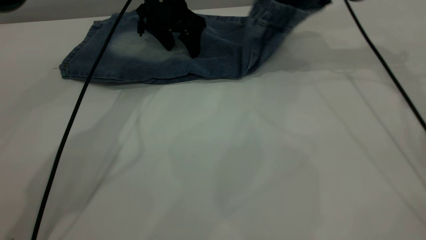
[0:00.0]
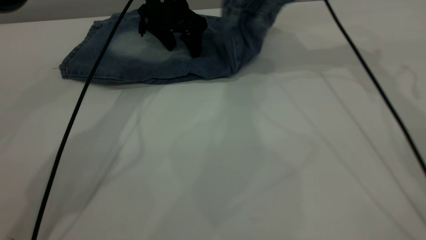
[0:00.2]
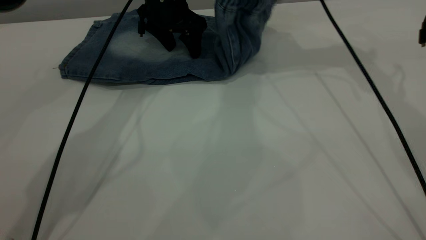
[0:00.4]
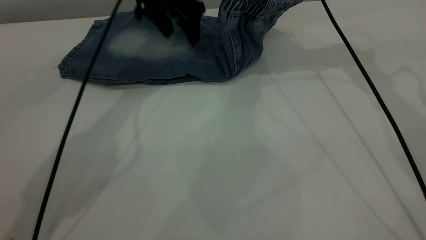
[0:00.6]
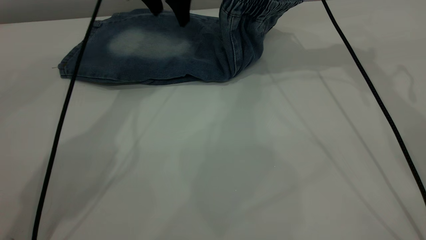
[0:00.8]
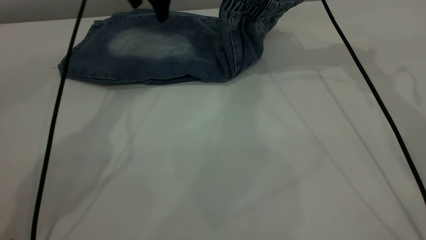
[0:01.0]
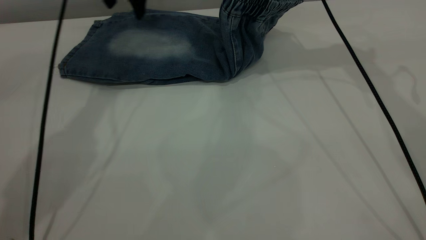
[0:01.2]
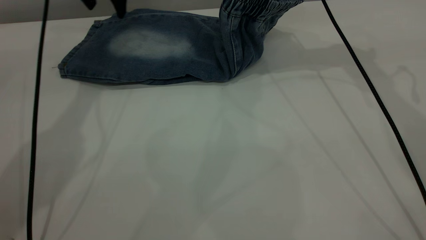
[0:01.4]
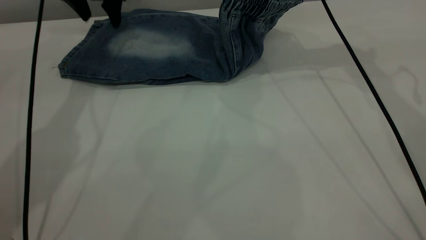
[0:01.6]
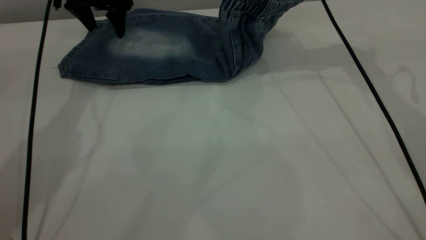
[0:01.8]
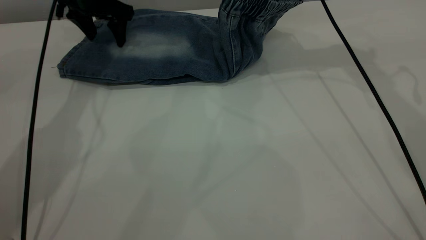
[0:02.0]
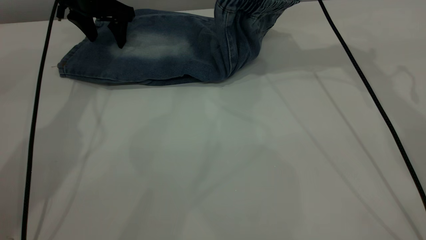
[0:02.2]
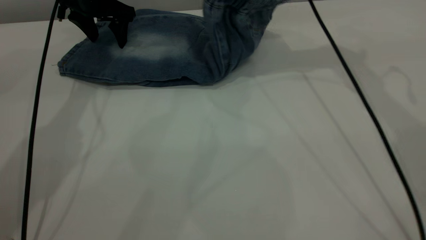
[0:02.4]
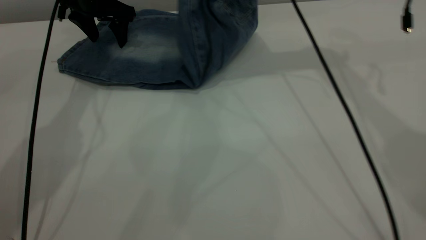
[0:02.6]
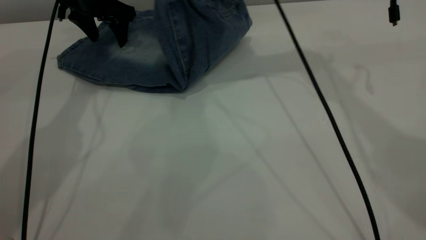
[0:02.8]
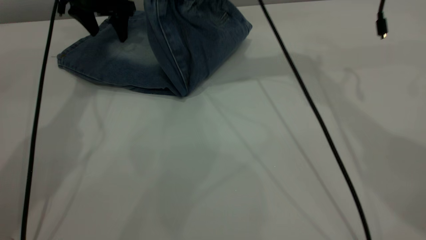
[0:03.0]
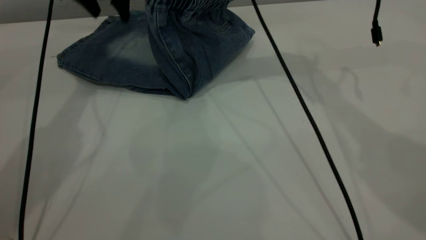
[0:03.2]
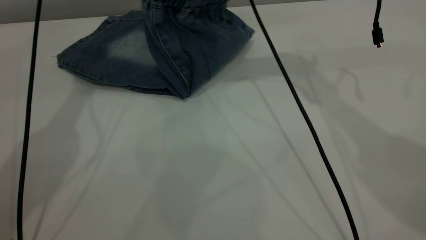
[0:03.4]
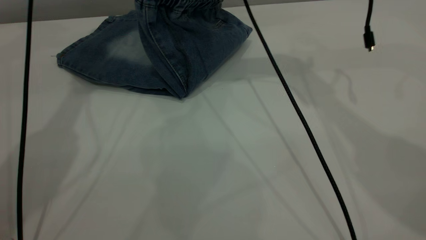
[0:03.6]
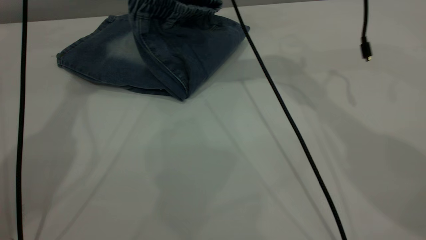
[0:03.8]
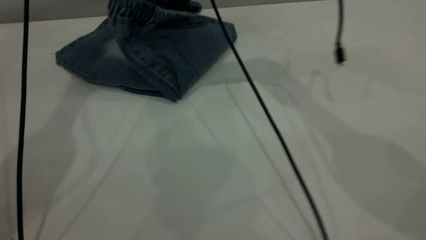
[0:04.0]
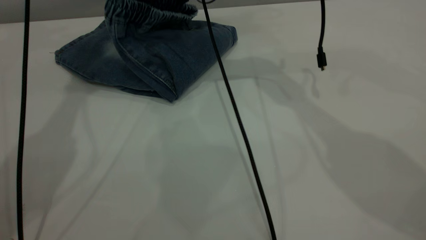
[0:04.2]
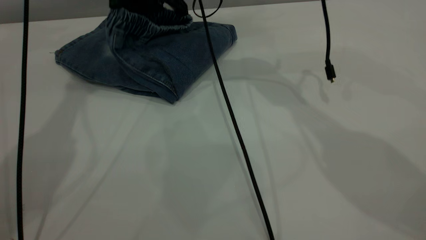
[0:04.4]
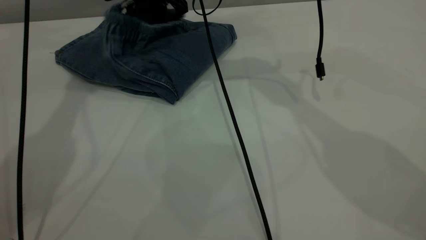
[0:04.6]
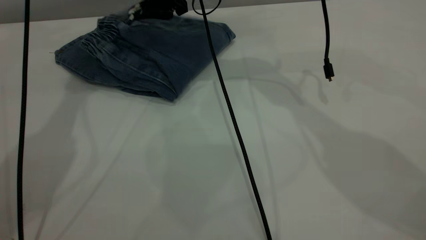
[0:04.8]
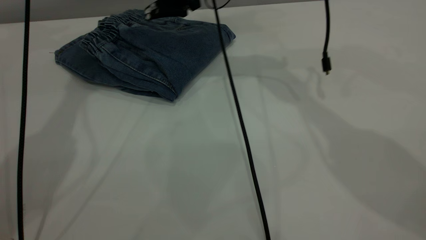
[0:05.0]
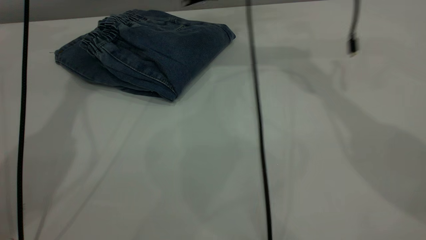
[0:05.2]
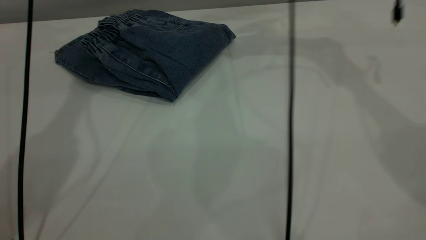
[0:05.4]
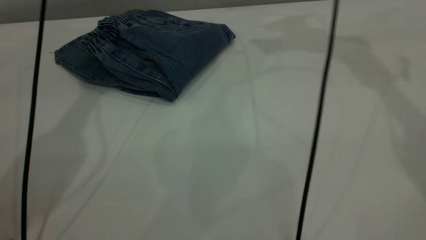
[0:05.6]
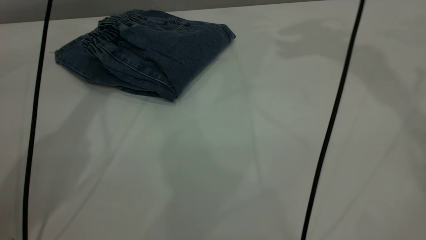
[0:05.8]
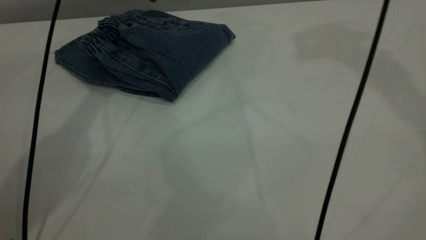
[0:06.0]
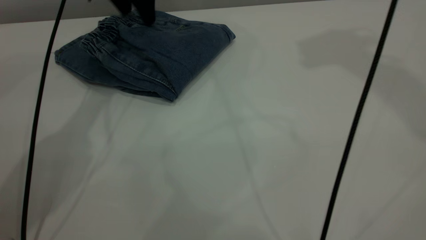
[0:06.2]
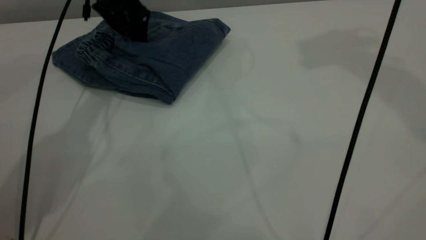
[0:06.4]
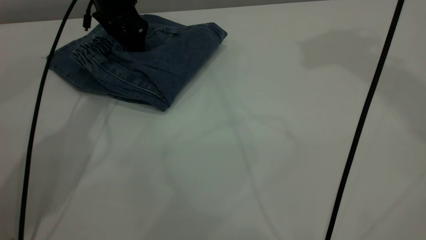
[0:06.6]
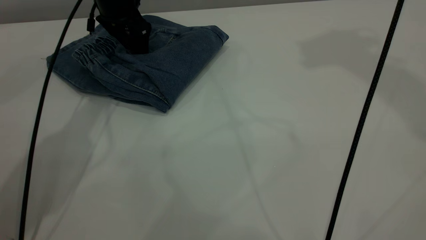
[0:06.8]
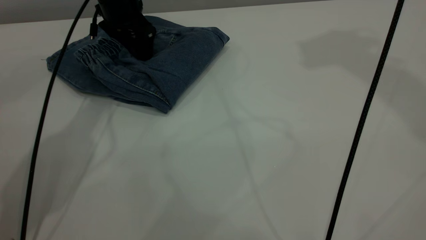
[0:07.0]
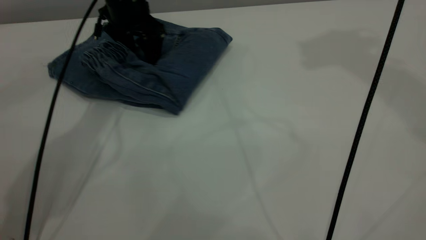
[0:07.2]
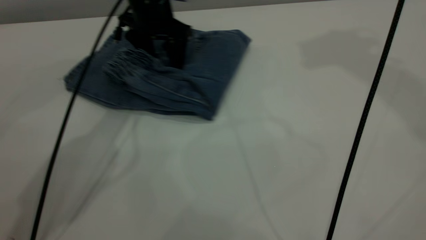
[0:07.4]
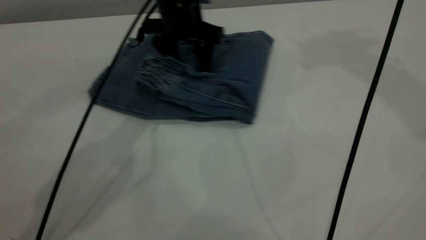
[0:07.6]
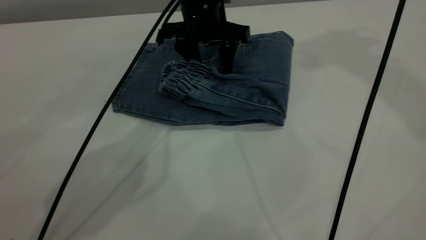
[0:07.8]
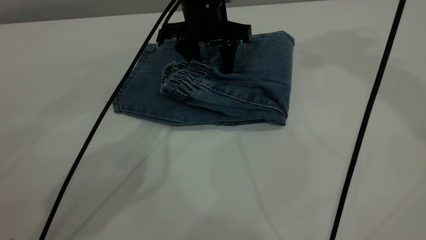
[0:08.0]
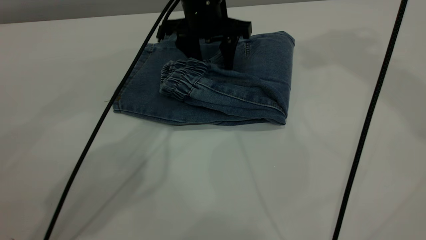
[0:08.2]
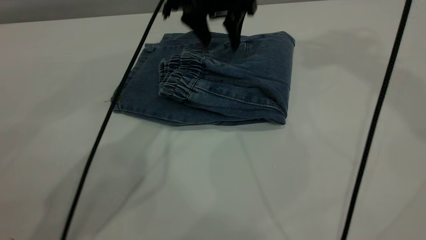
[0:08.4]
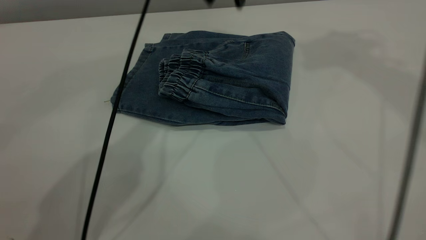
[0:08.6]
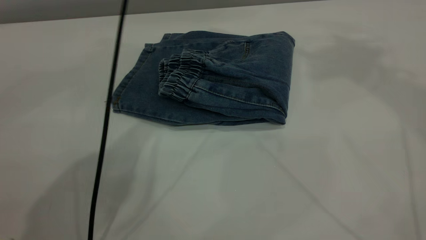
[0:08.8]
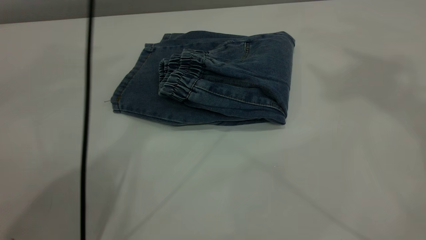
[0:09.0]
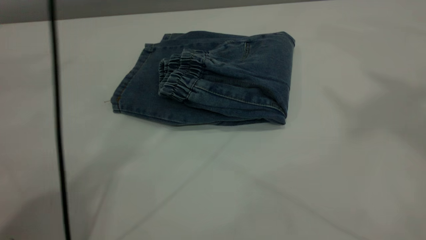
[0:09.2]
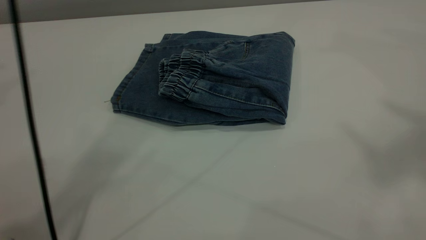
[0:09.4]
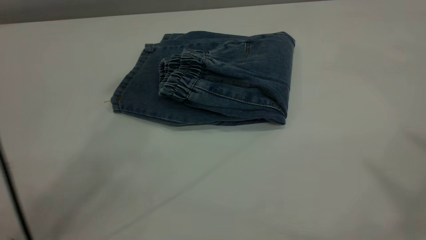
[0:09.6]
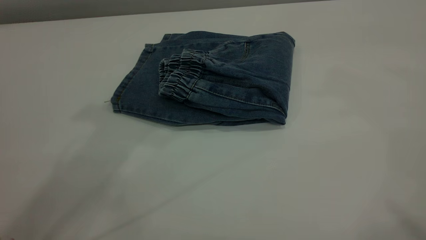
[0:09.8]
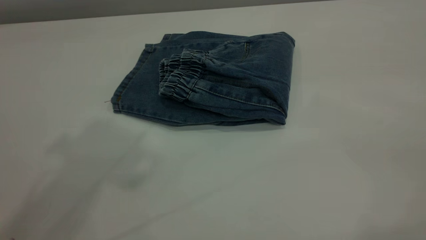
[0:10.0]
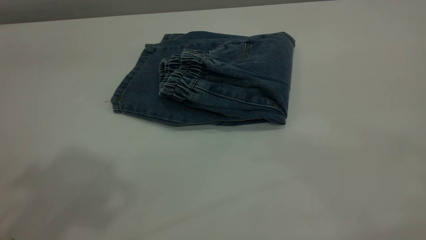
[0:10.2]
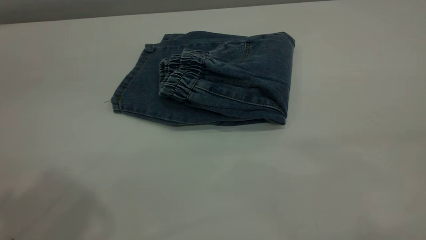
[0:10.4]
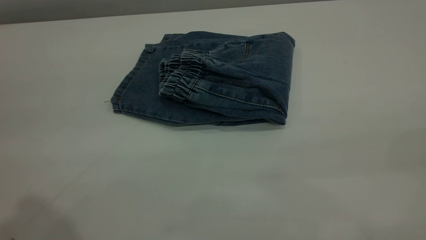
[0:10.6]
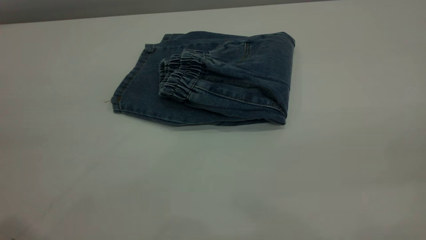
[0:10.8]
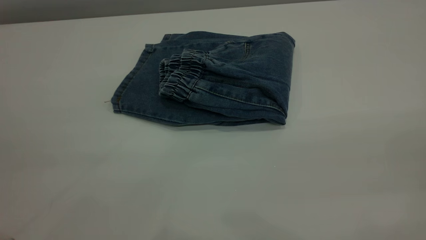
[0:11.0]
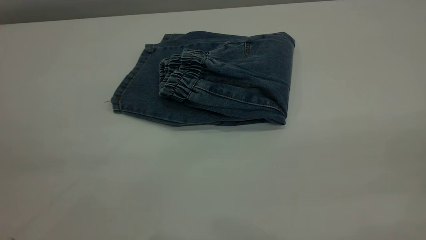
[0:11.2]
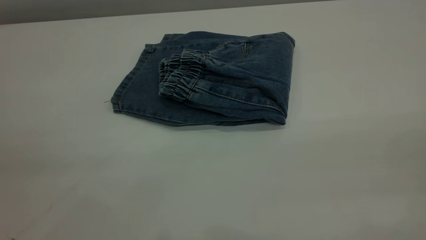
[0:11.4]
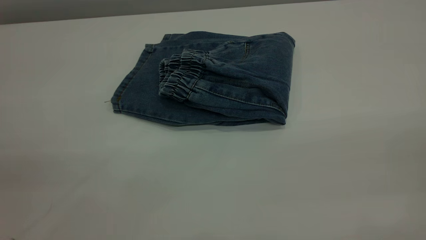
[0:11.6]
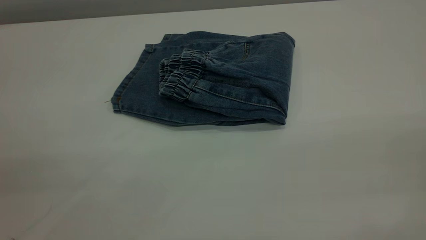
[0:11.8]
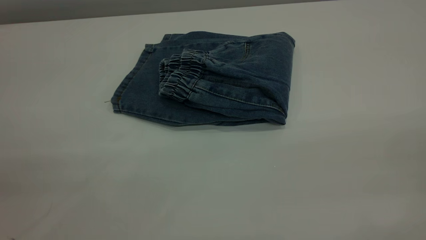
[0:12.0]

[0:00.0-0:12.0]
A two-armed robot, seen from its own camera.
Step, 0:00.0 to 0:05.8: Fold your pants from right to left.
0:00.0 to 0:01.6: The left gripper heads to the left, covering roughly 15 cm.
0:01.6 to 0:03.0: The right gripper travels to the left by approximately 10 cm.
0:03.0 to 0:04.4: The left gripper moves upward, approximately 15 cm; the right gripper shifts some 10 cm to the left and downward.
0:04.4 to 0:06.0: The left gripper heads downward, covering roughly 10 cm. Meanwhile the right gripper heads upward and to the right, covering roughly 35 cm, and opens.
0:06.0 to 0:07.6: The left gripper travels to the right, downward and backward by some 15 cm.
0:07.6 to 0:09.0: The right gripper heads backward and upward, covering about 15 cm; the left gripper shifts about 30 cm upward.
0:09.0 to 0:10.4: The left gripper travels backward and to the left by roughly 35 cm.

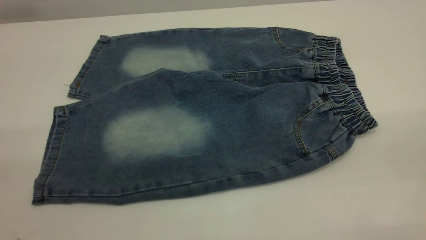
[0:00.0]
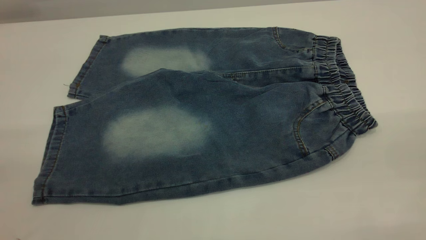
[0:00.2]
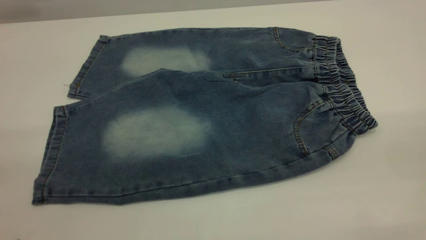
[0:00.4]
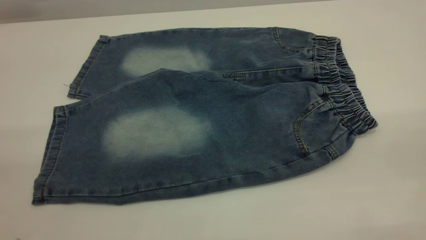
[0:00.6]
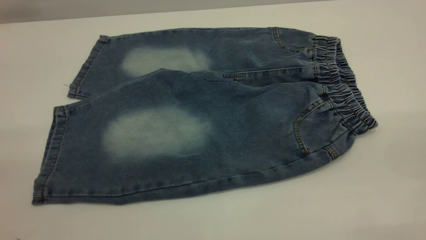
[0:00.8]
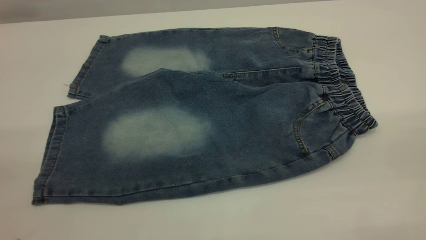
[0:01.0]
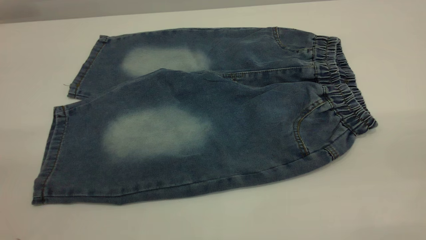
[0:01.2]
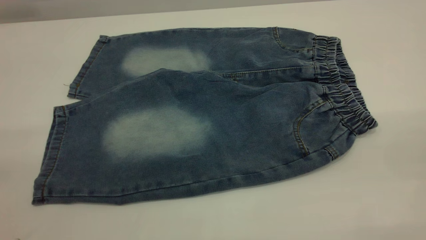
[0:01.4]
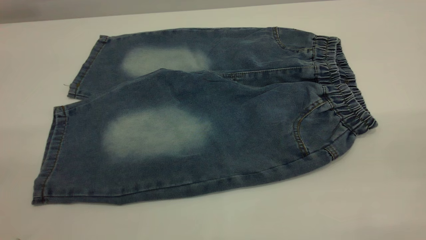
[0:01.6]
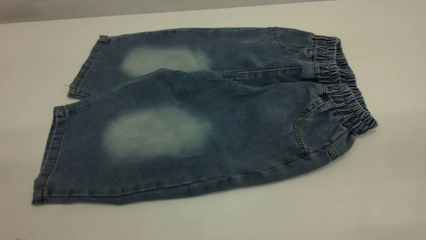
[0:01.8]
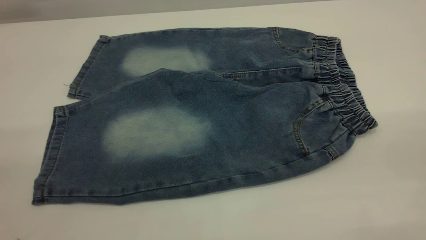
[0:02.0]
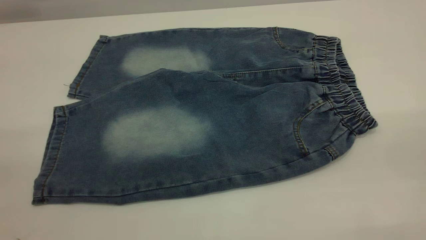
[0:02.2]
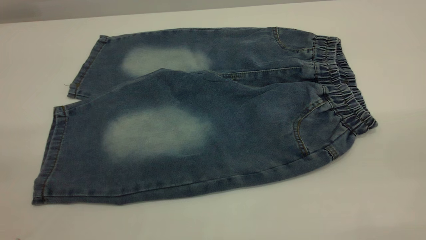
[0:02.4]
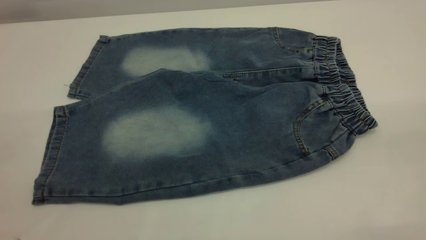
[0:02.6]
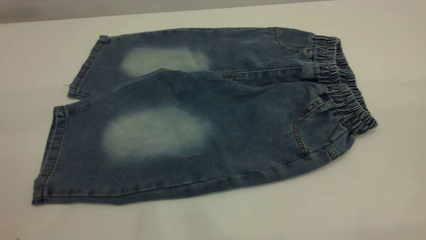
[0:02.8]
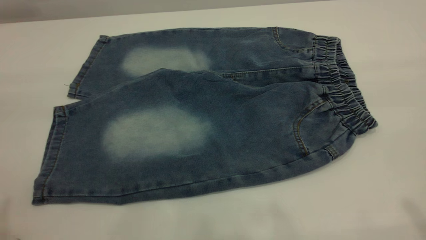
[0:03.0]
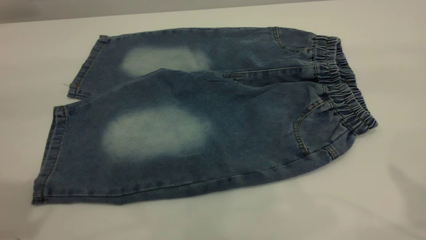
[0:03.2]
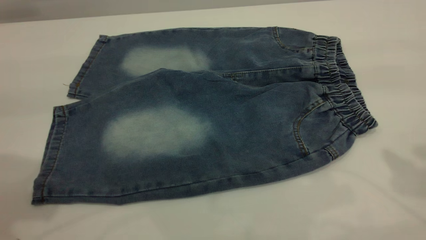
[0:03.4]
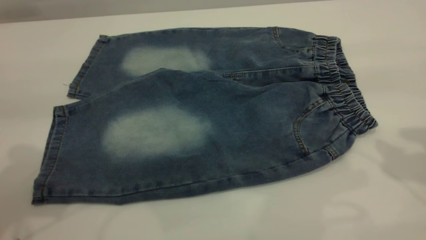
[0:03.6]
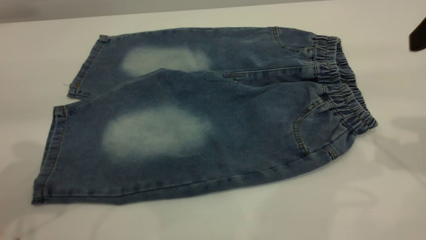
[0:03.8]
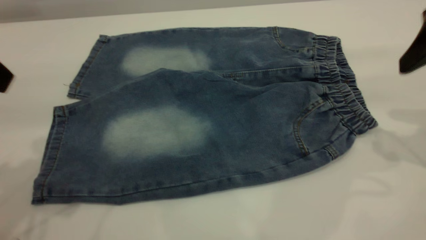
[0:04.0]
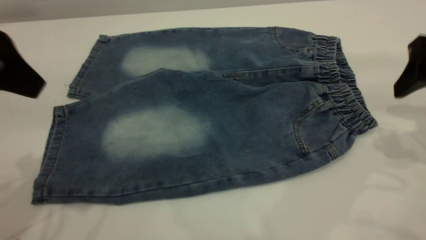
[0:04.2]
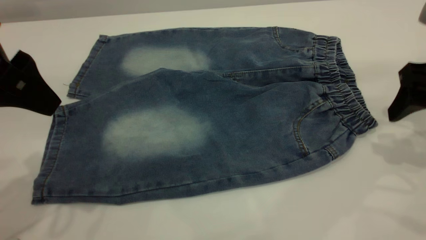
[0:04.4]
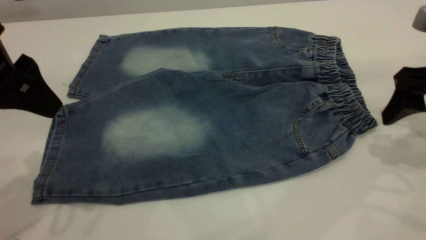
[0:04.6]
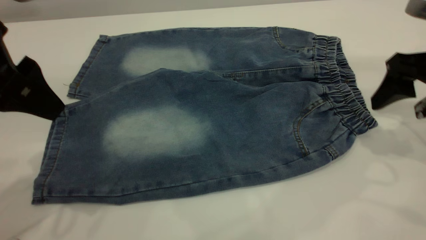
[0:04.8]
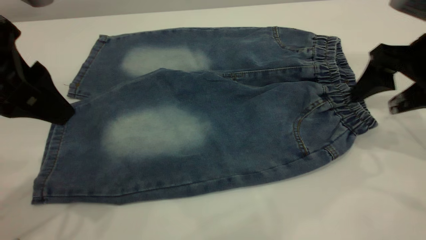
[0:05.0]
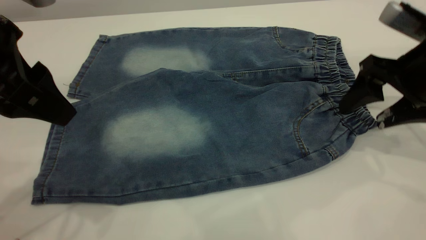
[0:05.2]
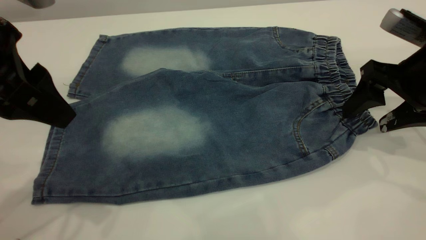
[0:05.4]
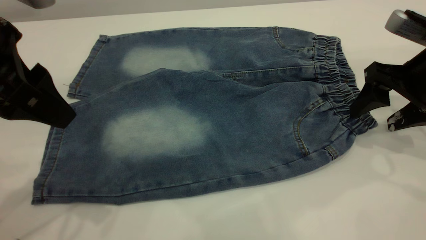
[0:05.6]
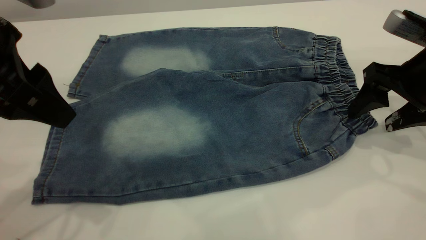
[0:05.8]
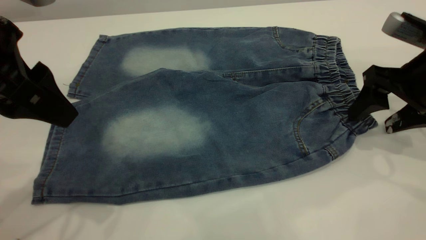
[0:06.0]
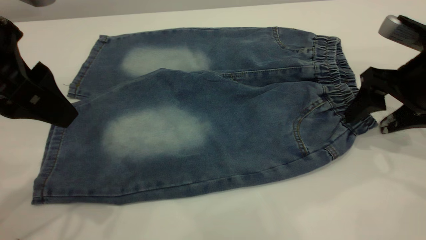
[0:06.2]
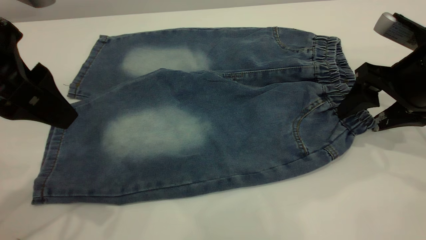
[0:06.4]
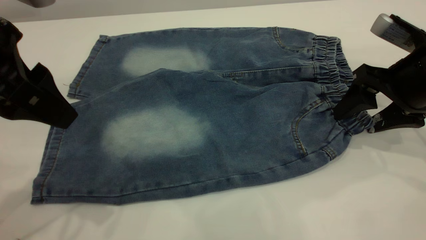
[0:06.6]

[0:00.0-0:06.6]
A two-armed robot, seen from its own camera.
0:00.0 to 0:01.6: Both grippers stay put.
0:03.2 to 0:05.0: The right gripper goes about 25 cm downward and forward; the left gripper shifts about 15 cm downward, to the right and forward.
0:05.0 to 0:06.6: The grippers stay close to where they were, moving slightly.
